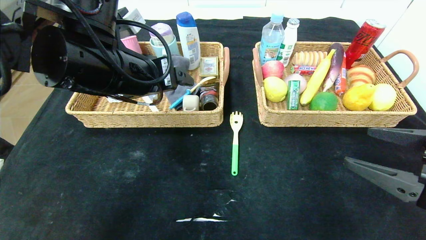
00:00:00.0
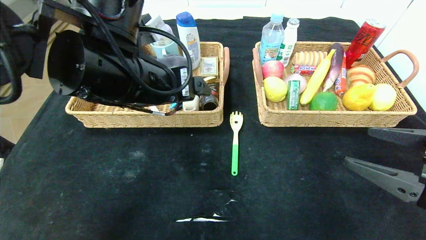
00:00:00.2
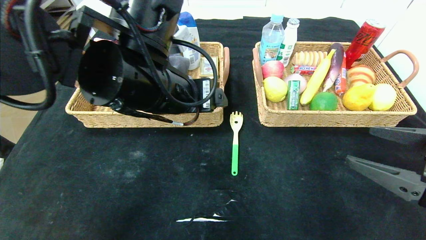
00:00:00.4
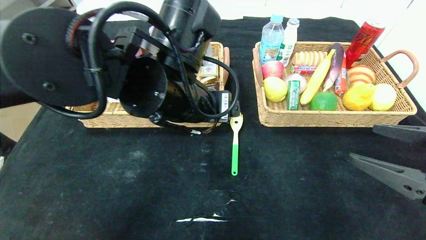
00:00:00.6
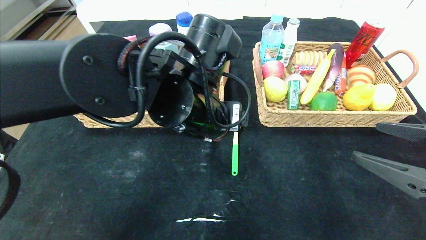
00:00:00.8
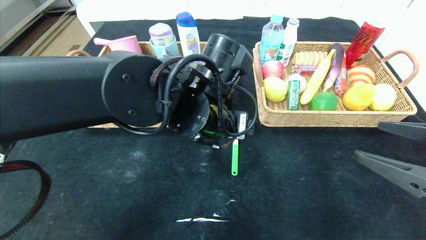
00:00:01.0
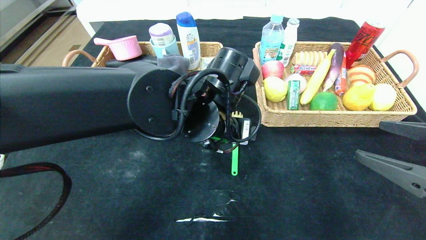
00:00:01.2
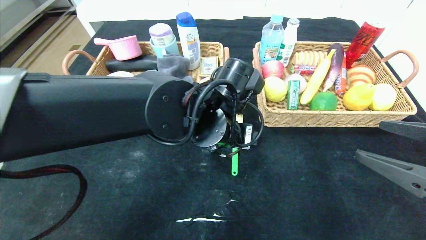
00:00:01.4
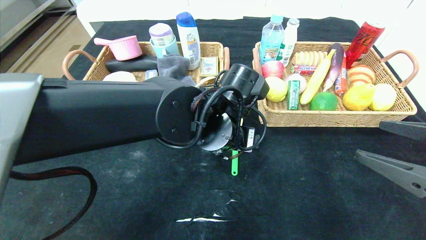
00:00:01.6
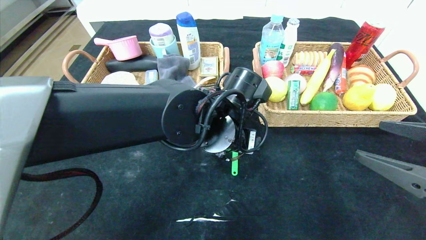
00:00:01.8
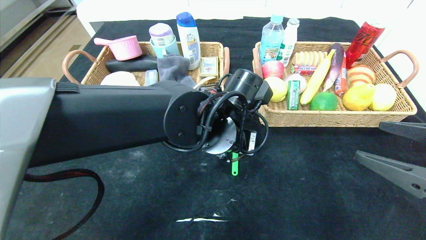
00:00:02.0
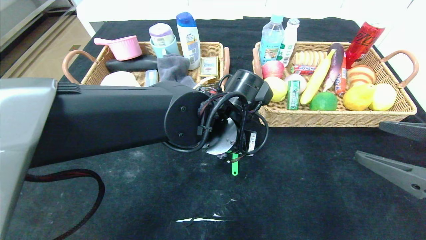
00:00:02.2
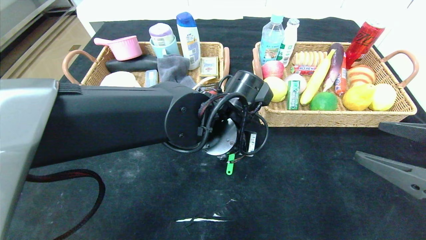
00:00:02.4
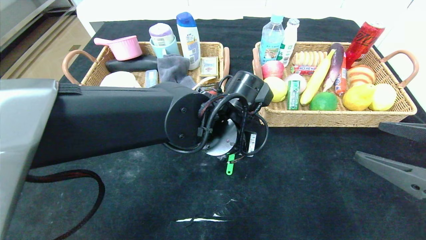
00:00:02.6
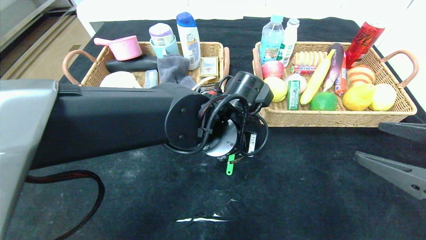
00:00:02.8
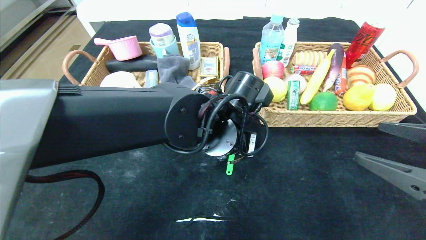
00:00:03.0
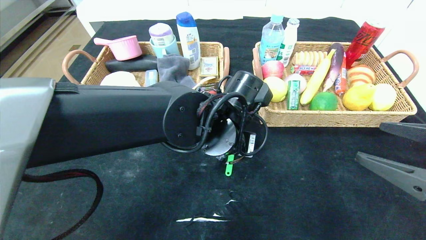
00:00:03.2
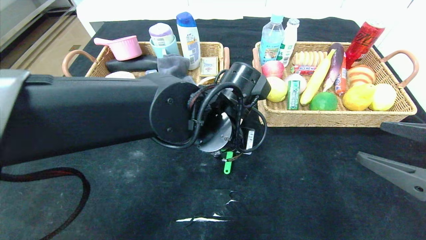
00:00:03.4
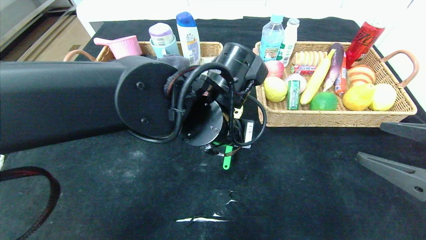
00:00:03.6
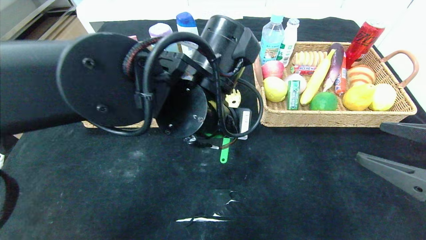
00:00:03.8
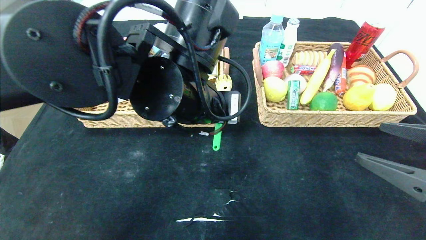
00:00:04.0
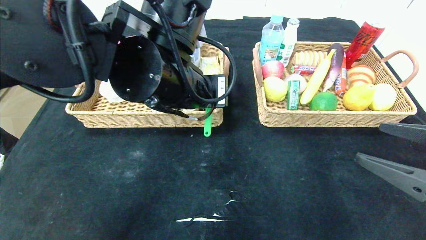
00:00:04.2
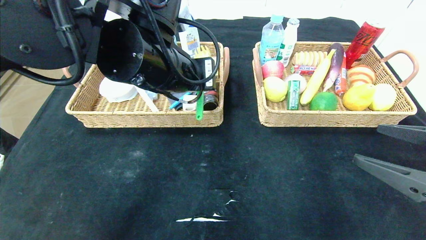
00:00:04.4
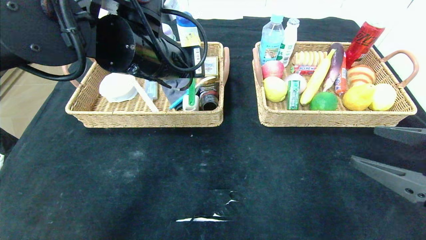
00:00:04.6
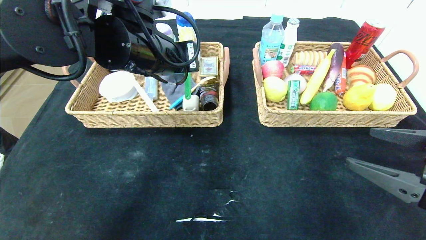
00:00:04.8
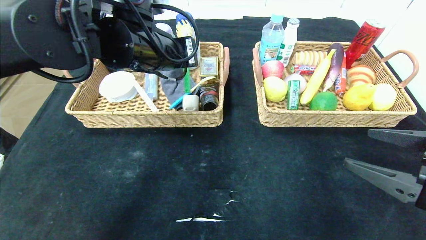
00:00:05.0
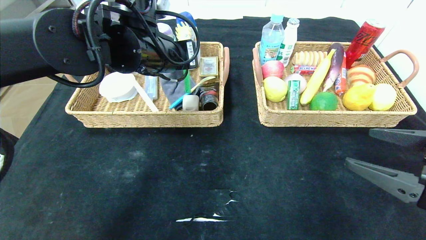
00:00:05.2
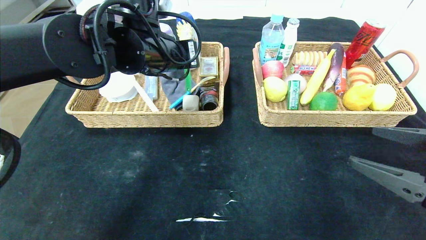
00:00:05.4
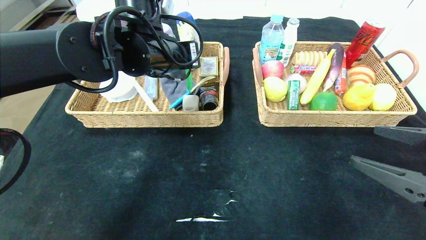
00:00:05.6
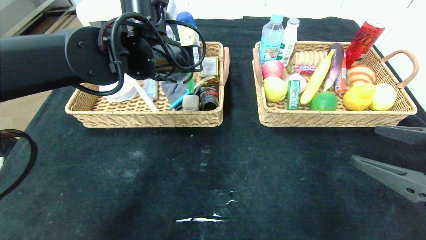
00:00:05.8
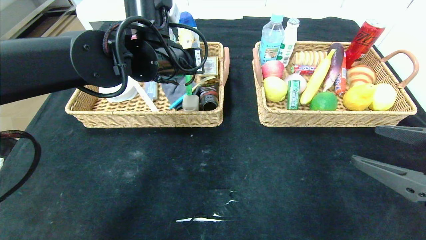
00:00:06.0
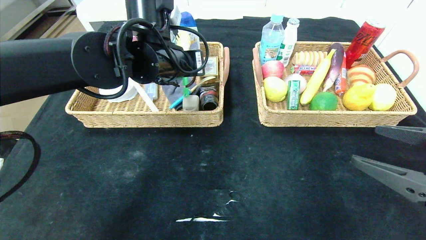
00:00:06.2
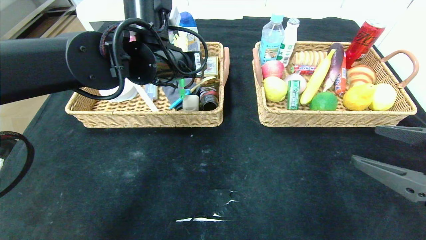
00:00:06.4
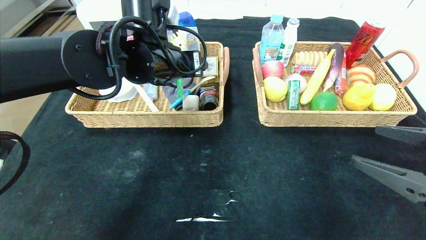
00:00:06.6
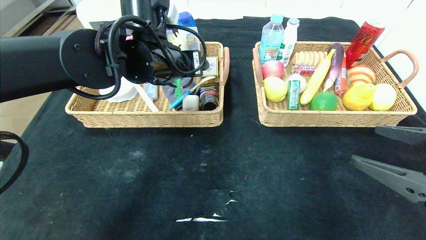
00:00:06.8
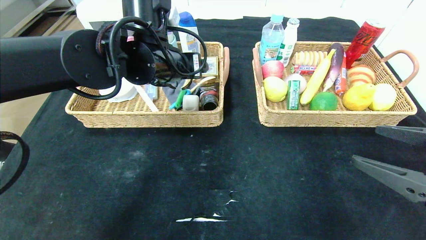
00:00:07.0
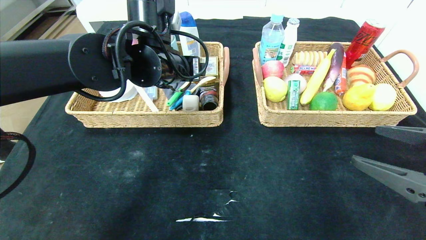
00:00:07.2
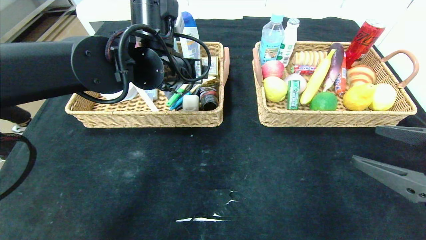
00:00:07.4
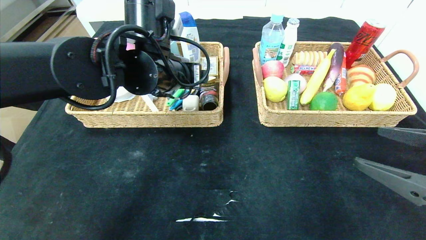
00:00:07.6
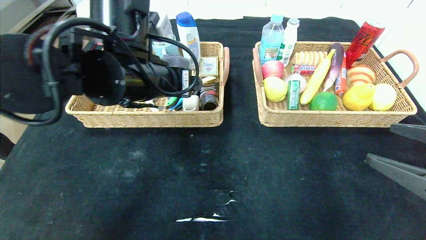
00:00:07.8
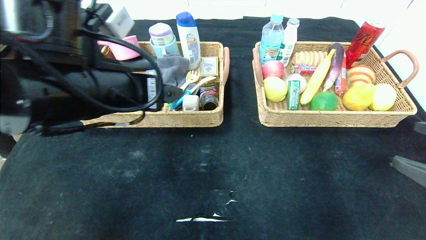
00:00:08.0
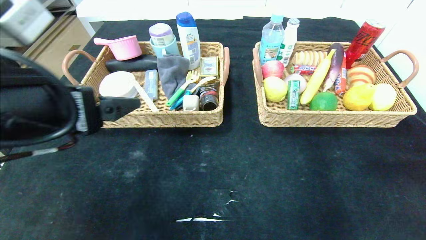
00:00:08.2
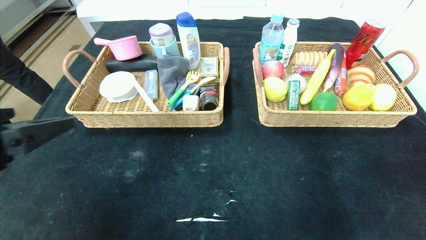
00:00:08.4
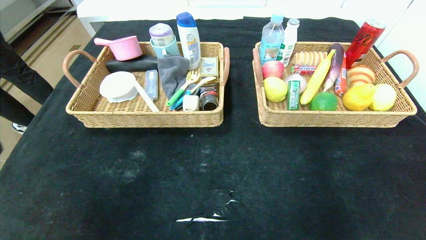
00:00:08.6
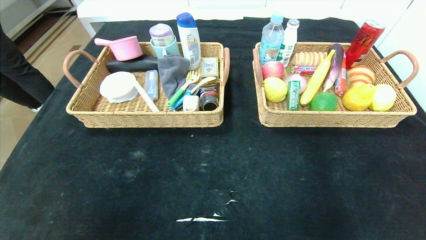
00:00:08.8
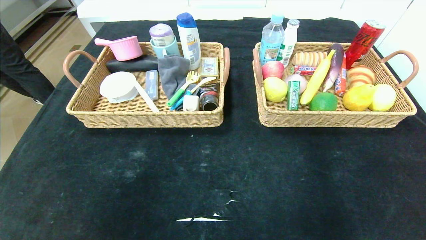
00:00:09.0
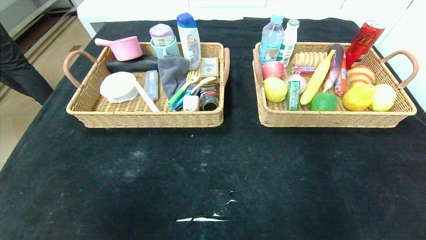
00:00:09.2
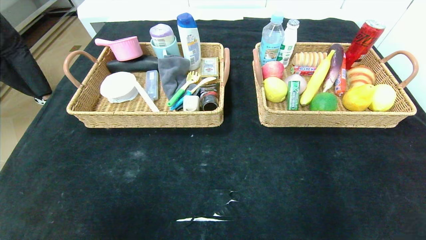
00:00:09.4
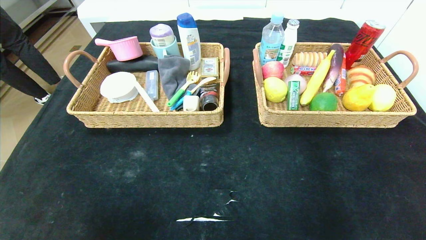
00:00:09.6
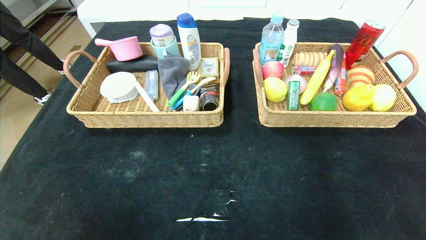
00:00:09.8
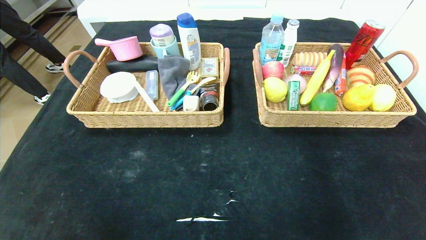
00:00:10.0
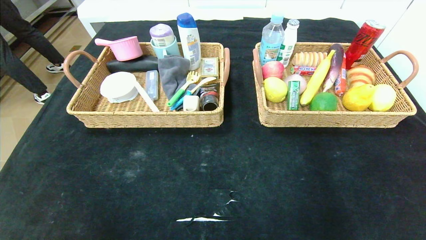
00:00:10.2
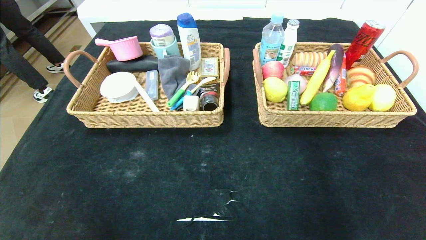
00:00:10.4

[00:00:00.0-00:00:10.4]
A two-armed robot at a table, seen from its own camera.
Step, 00:00:01.0 to 00:00:08.4: Pick up the back scratcher and put it in the left basket.
00:00:00.0 to 00:00:01.4: The left gripper travels to the right and downward by some 15 cm.
00:00:01.4 to 00:00:03.0: The left gripper closes up.
00:00:03.0 to 00:00:04.4: The left gripper is displaced upward and to the left by approximately 15 cm.
00:00:04.4 to 00:00:06.0: The left gripper heads forward, covering about 5 cm, and opens.
00:00:06.0 to 00:00:07.4: The left gripper opens up.
00:00:07.4 to 00:00:09.0: The left gripper is displaced backward and to the left by approximately 40 cm. Meanwhile the right gripper is displaced backward by approximately 20 cm.
00:00:09.0 to 00:00:10.4: The left gripper moves downward, approximately 20 cm.

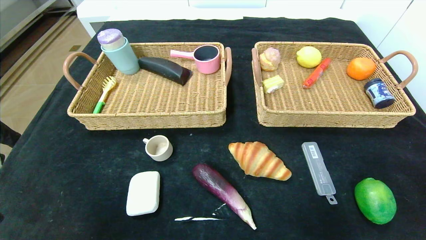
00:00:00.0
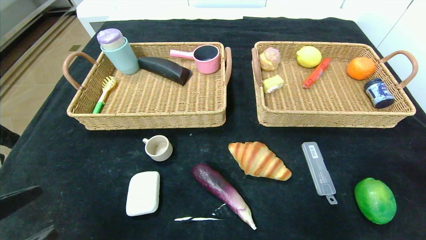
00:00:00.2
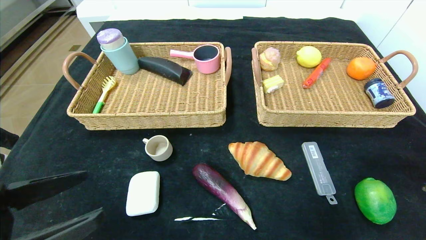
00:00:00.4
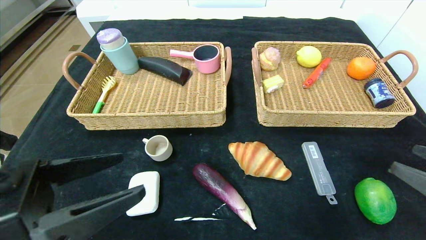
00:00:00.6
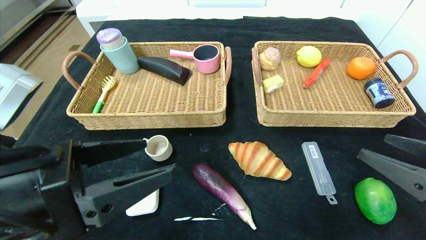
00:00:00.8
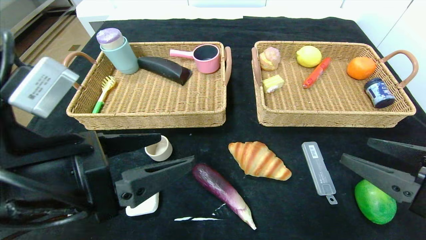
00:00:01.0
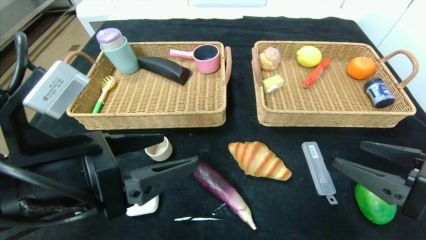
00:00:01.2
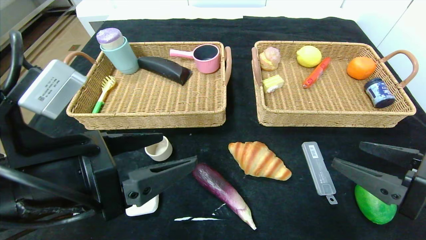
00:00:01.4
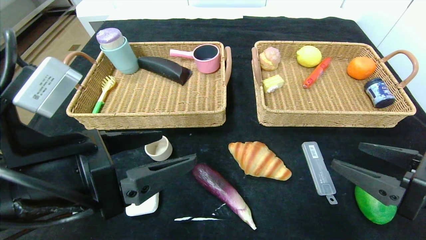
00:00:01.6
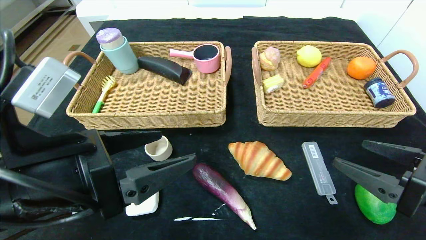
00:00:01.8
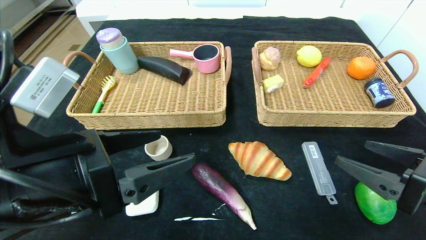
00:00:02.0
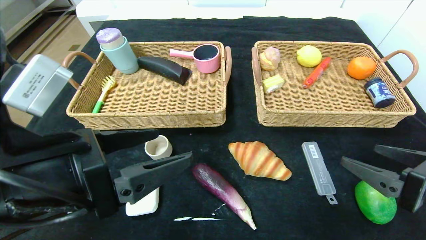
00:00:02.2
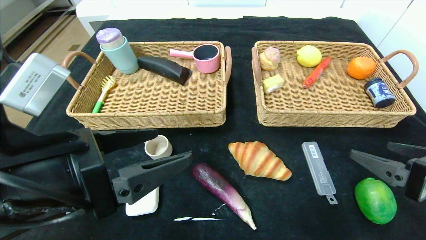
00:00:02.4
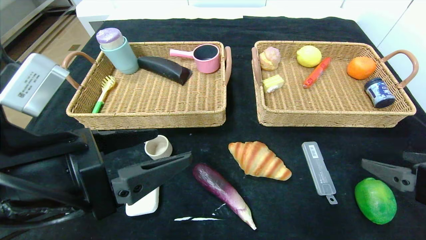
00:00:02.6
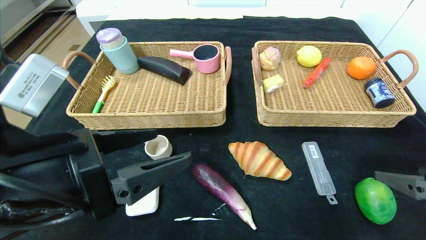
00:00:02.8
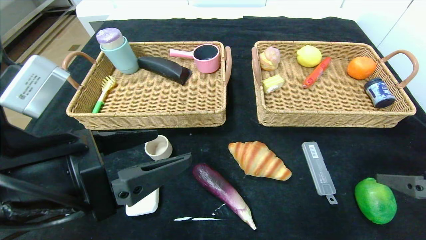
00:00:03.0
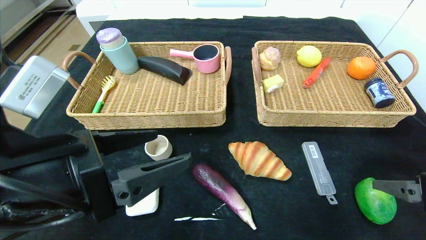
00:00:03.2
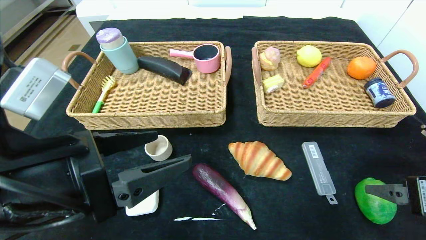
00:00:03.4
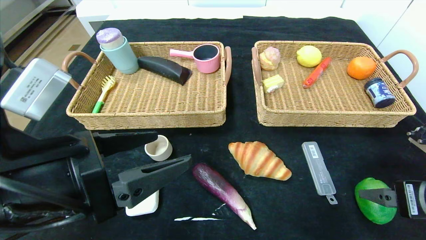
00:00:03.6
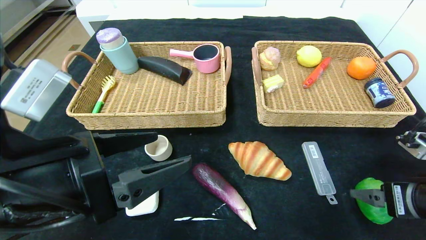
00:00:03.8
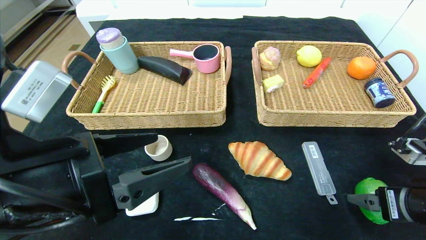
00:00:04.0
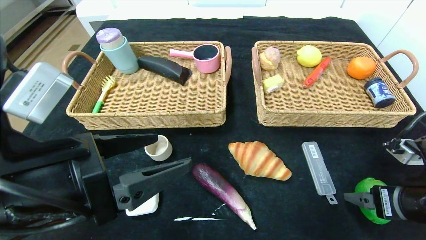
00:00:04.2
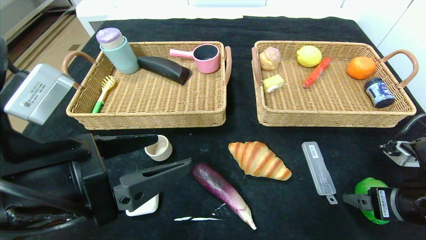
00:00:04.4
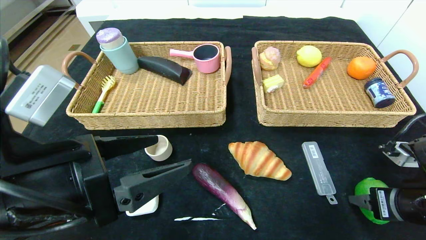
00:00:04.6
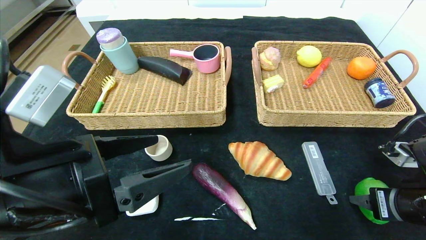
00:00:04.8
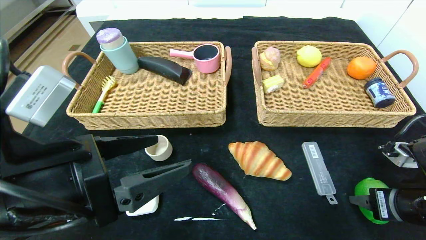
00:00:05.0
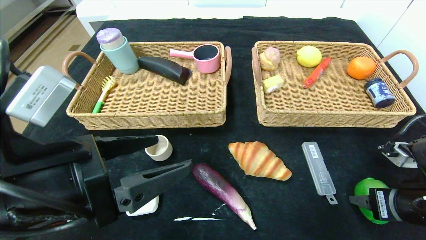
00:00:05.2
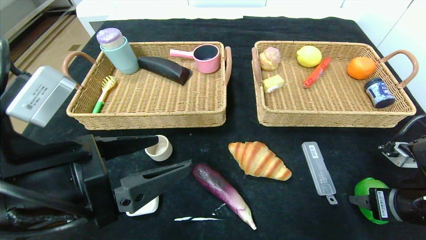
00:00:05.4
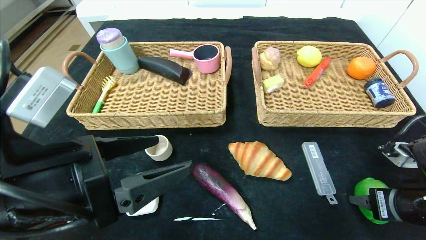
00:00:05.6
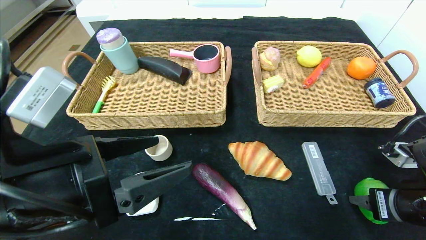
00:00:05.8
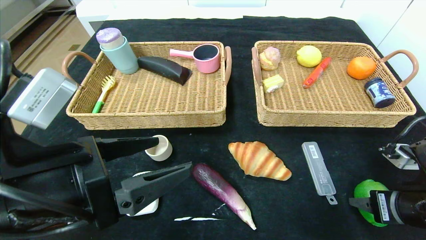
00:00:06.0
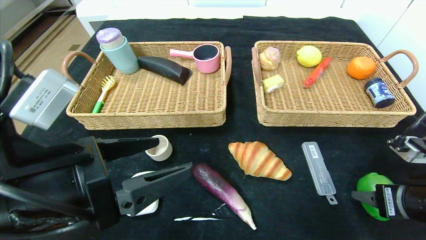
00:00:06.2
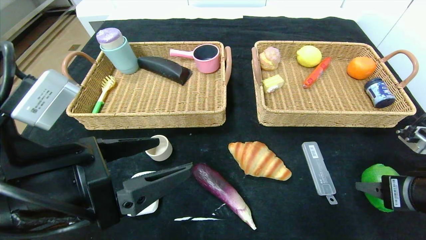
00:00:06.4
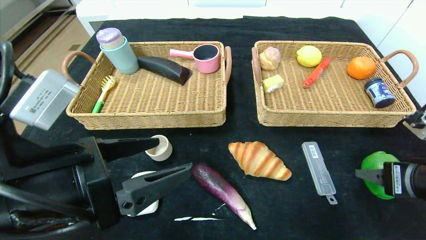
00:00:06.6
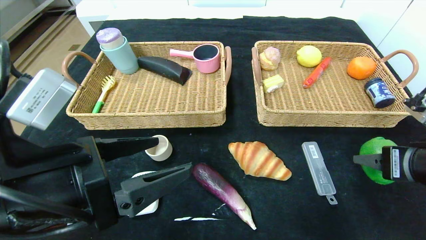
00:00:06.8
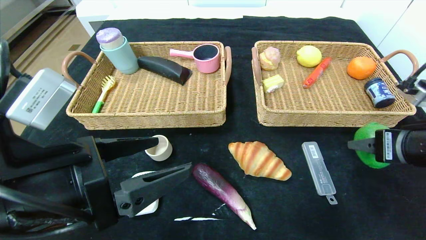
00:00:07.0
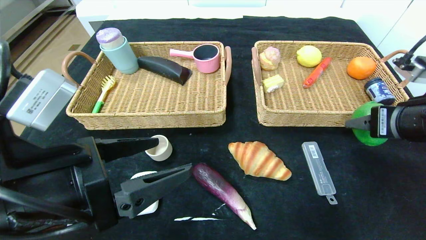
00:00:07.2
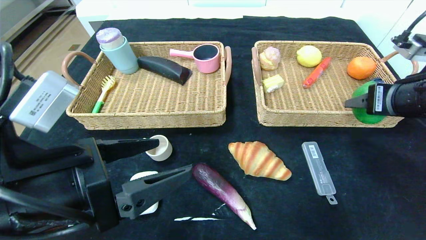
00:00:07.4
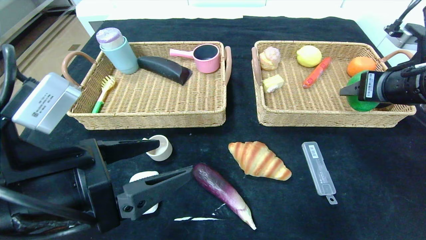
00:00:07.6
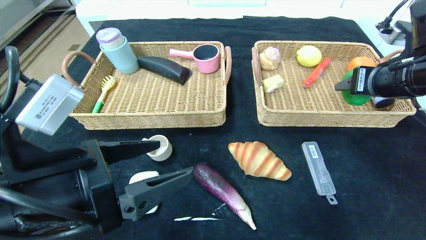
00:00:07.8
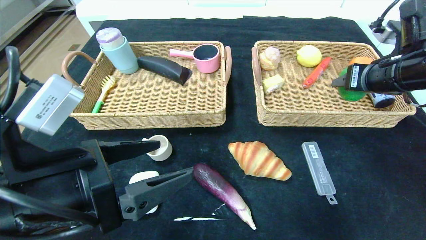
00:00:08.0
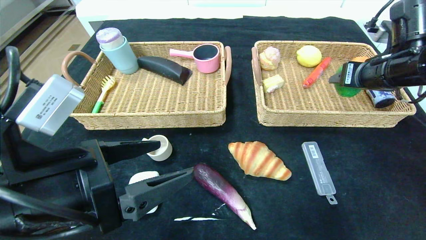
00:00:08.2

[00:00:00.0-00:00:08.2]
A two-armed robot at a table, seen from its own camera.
00:00:00.0 to 00:00:01.6: The left gripper travels forward, to the right and upward by approximately 20 cm. Meanwhile the right gripper shifts approximately 15 cm forward and to the left.
00:00:03.2 to 00:00:05.0: The right gripper is displaced downward by about 5 cm, and closes up.
00:00:05.0 to 00:00:06.6: The right gripper travels upward by some 5 cm.
00:00:06.6 to 00:00:08.2: The right gripper shifts approximately 20 cm forward and upward.
